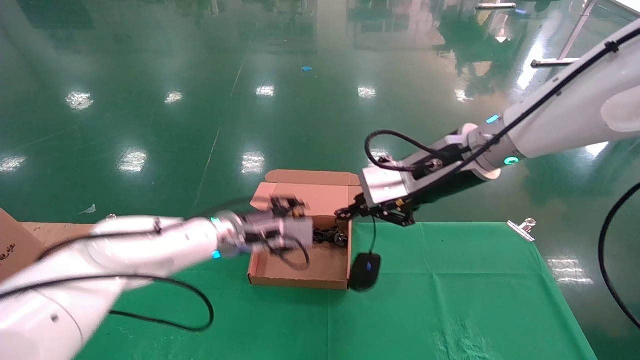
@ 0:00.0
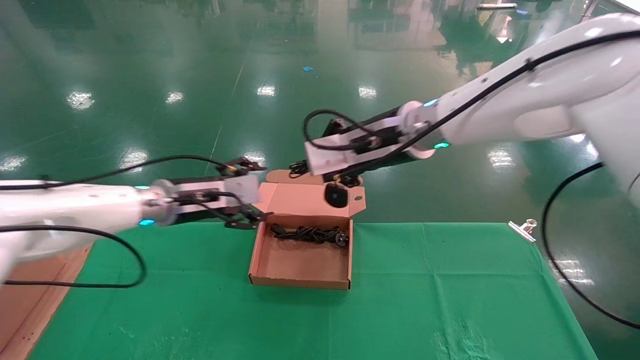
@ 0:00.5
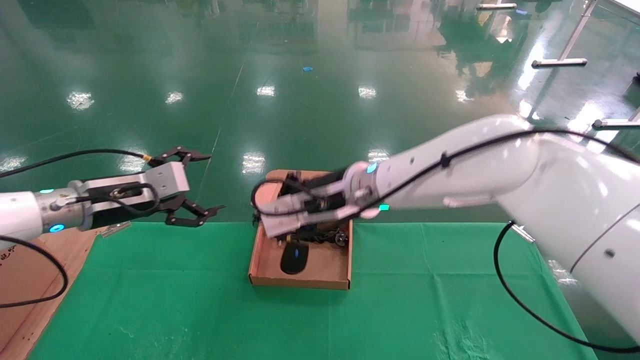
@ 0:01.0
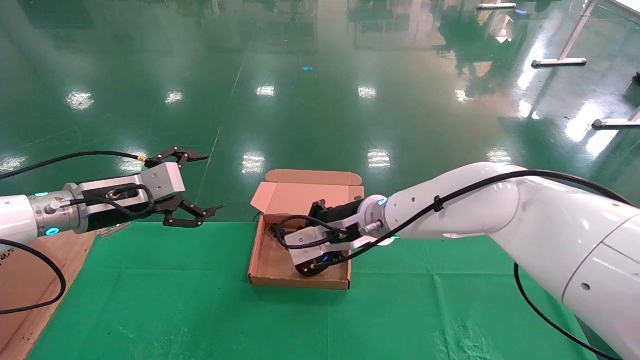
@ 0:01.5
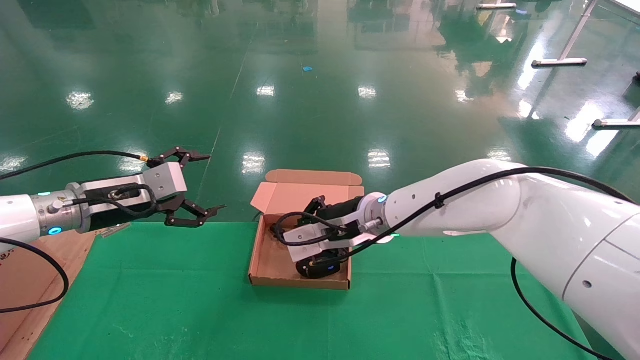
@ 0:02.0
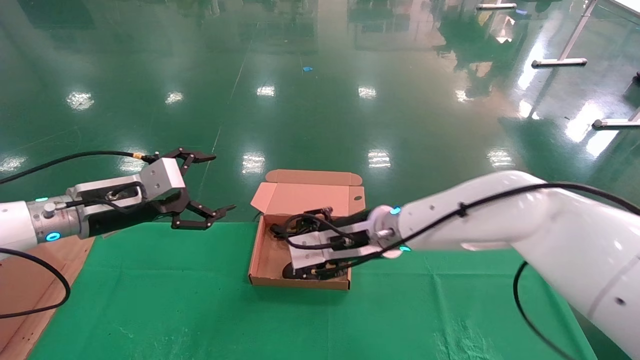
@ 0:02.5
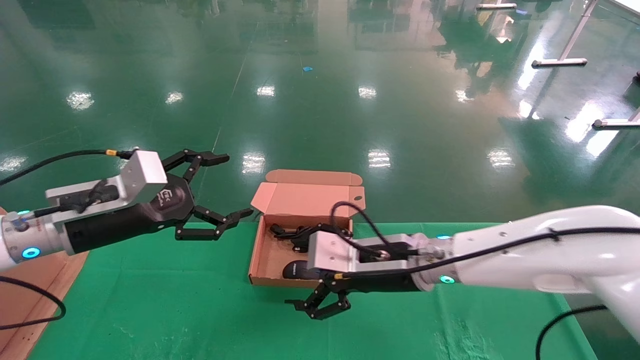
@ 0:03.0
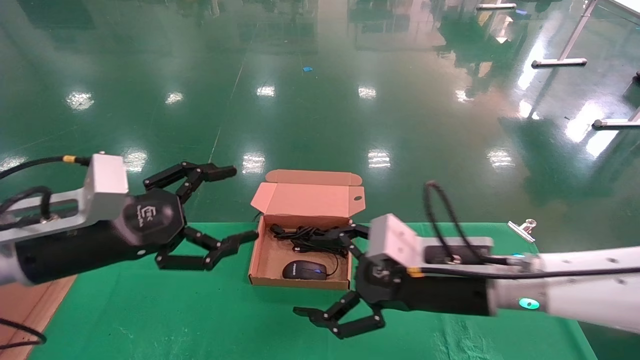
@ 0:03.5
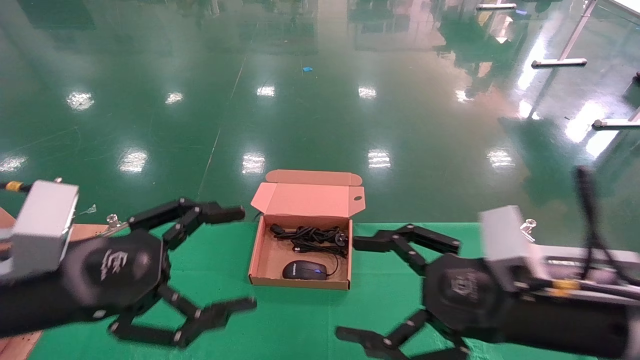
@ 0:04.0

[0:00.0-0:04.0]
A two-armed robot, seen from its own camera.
0:00.0 to 0:02.0: The right gripper travels downward and to the left by about 15 cm. The left gripper moves to the left, some 20 cm, and opens.
0:02.0 to 0:04.0: The right gripper heads backward and to the right, covering about 25 cm, and opens; the left gripper travels backward by some 20 cm.

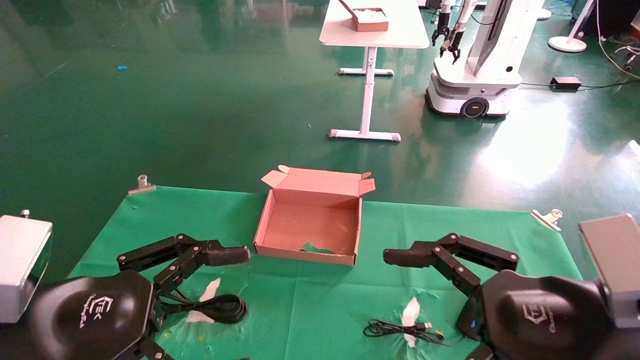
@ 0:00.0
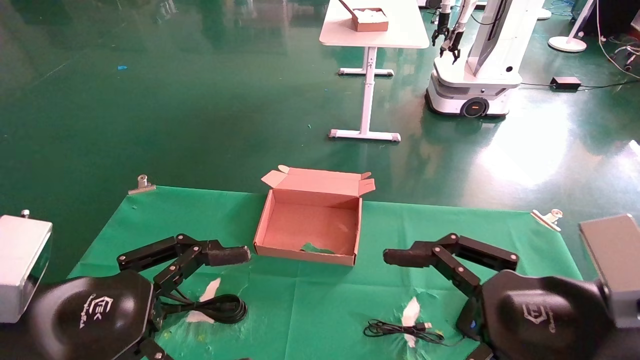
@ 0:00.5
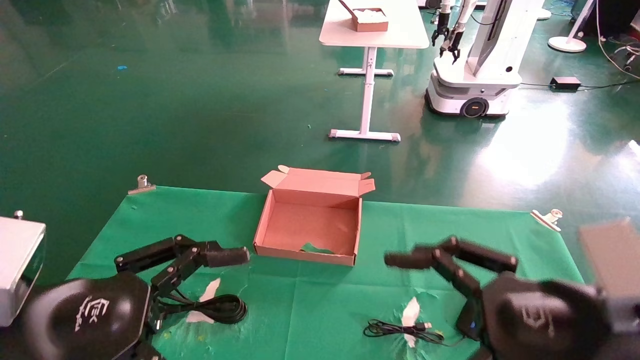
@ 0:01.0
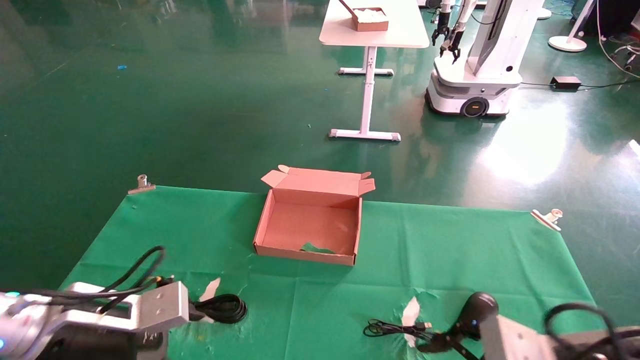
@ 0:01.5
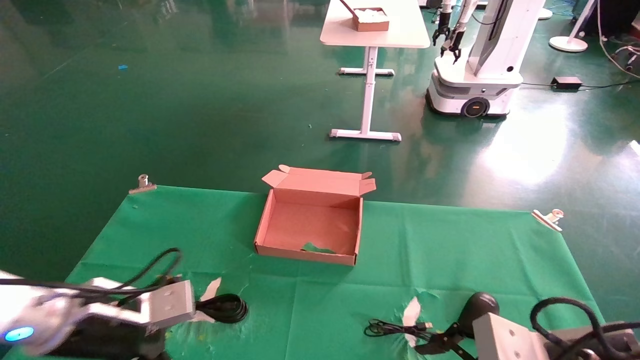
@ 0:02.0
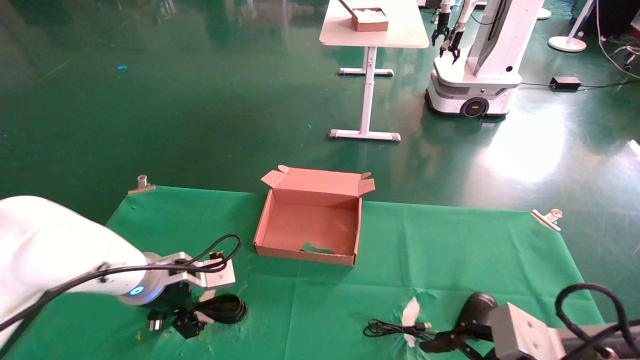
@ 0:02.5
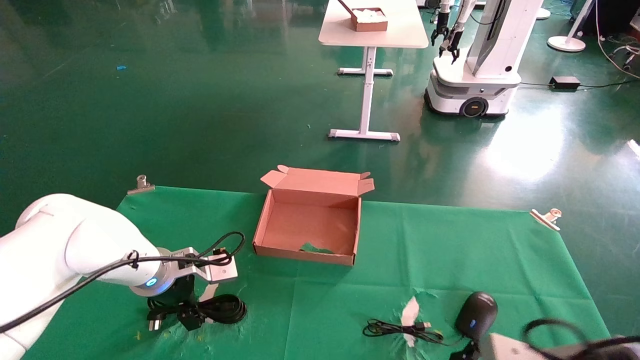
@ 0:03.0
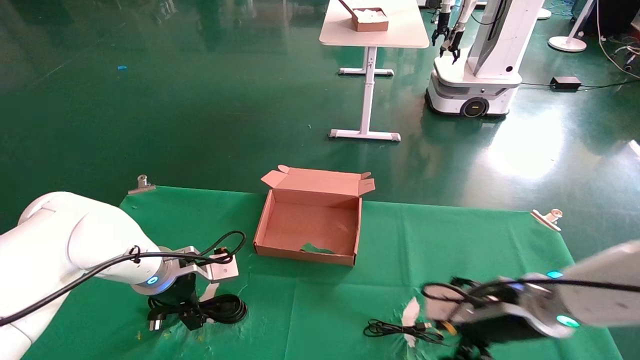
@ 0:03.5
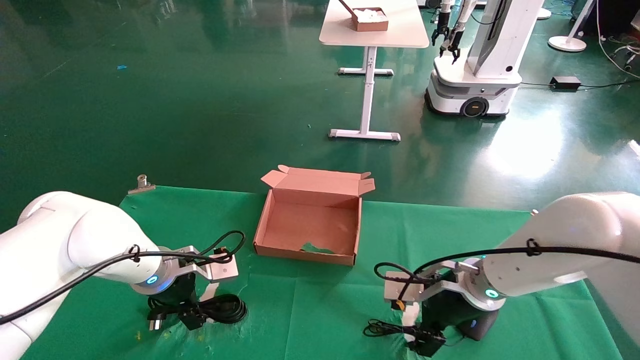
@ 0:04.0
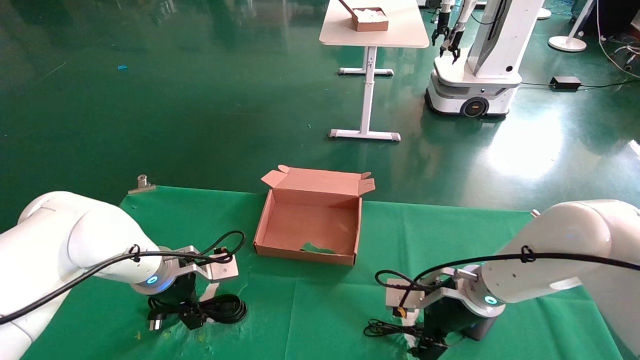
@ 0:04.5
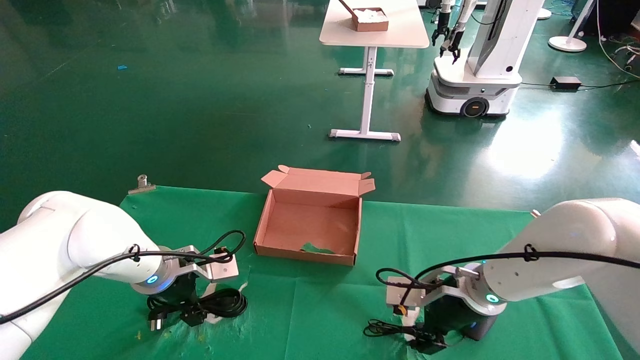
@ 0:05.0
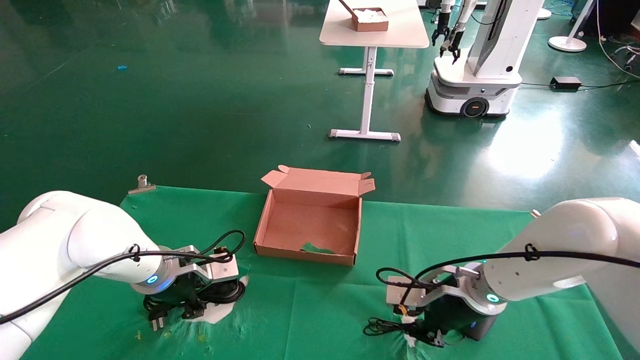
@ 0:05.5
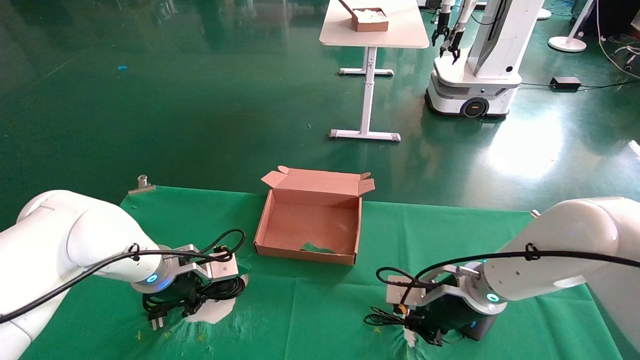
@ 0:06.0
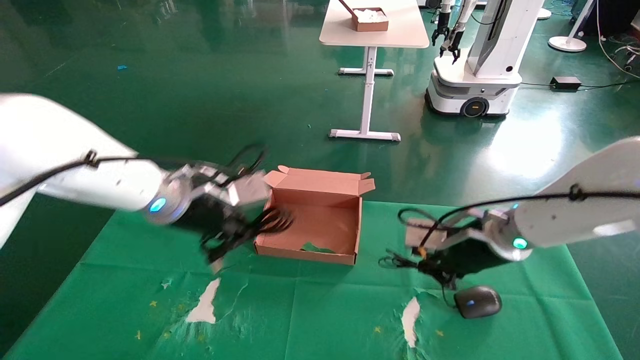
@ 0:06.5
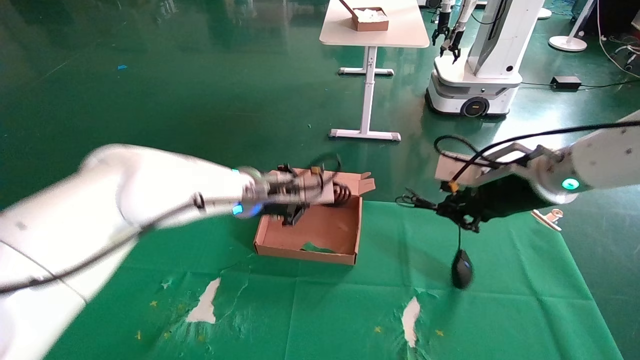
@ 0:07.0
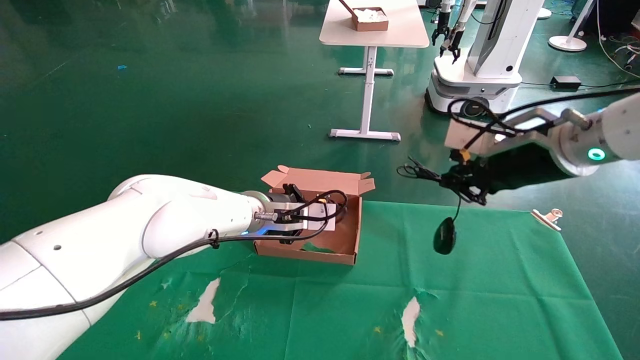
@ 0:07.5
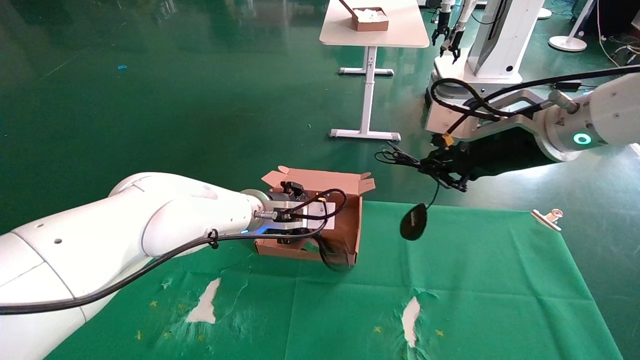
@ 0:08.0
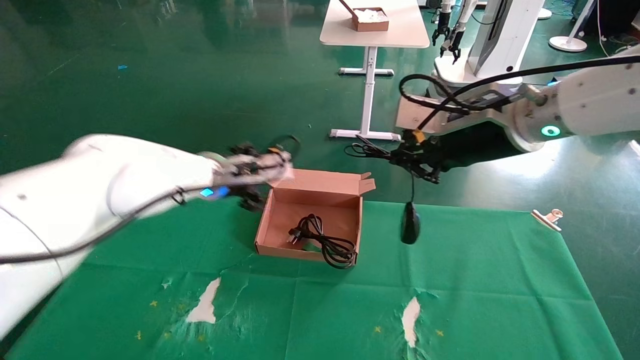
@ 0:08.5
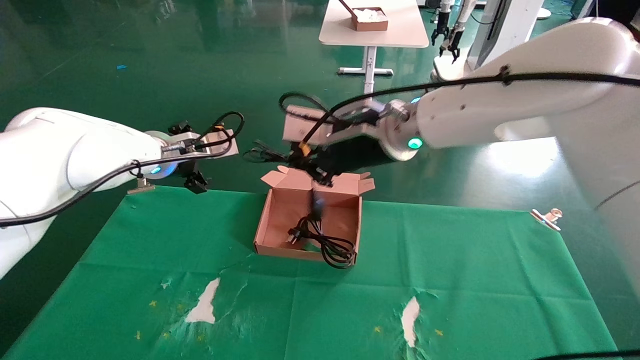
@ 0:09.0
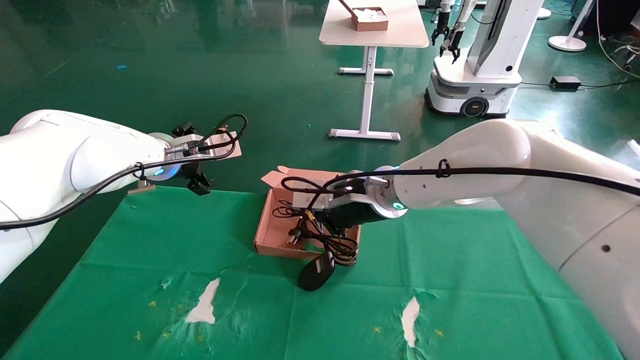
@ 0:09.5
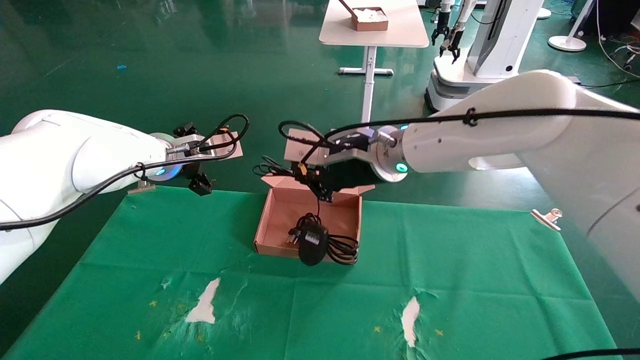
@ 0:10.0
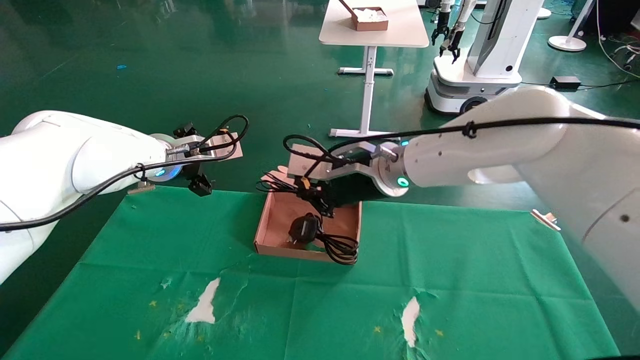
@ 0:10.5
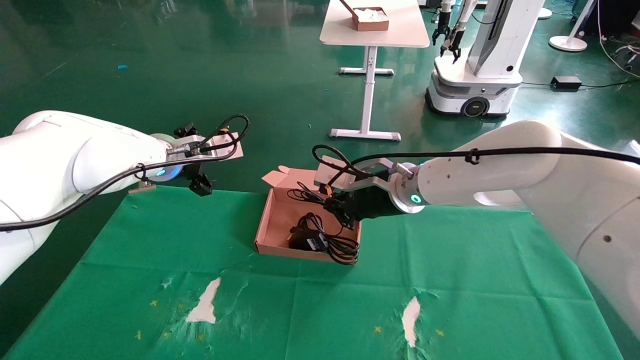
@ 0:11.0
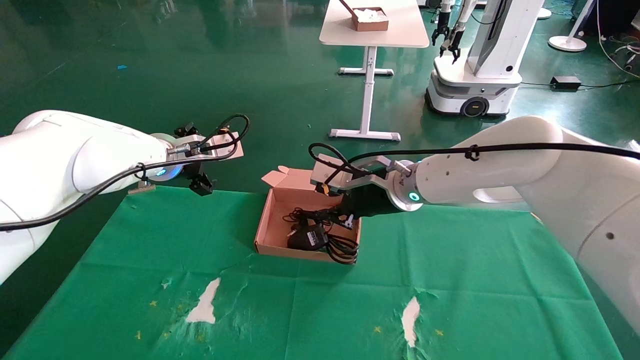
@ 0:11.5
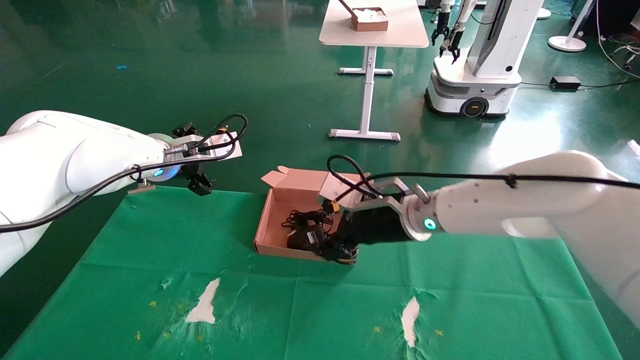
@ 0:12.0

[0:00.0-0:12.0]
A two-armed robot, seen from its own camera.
Step, 0:01.5 to 0:06.0: Grab and lift both the mouse and power cord from the accessory packaging area at the same time.
Step, 0:06.5 to 0:11.5: Place the mouse and power cord into the box.
0:00.0 to 0:02.0: The left gripper shifts about 15 cm forward and downward; the right gripper travels downward by roughly 5 cm.
0:02.0 to 0:04.0: Both grippers travel together forward, approximately 15 cm.
0:04.0 to 0:06.0: The right gripper closes; the left gripper closes its fingers.
0:06.0 to 0:08.0: The right gripper heads upward, covering some 20 cm; the left gripper moves to the right and upward, about 15 cm.
0:08.0 to 0:10.0: The right gripper moves to the left, roughly 20 cm. Meanwhile the left gripper travels to the left and upward by approximately 15 cm, and opens its fingers.
0:10.0 to 0:12.0: The right gripper goes roughly 10 cm downward, and opens.

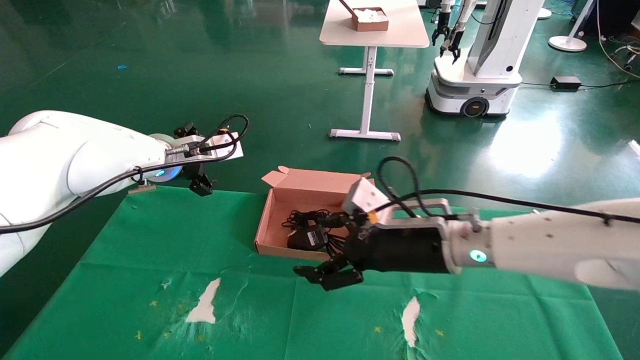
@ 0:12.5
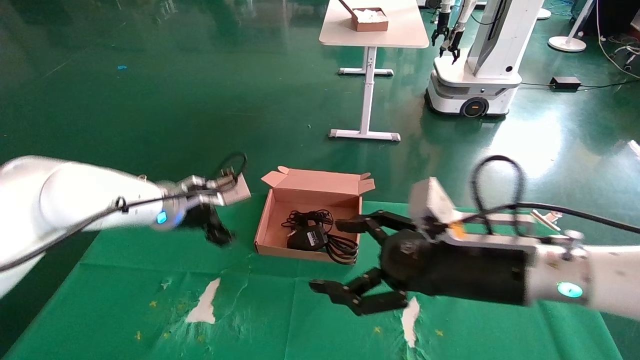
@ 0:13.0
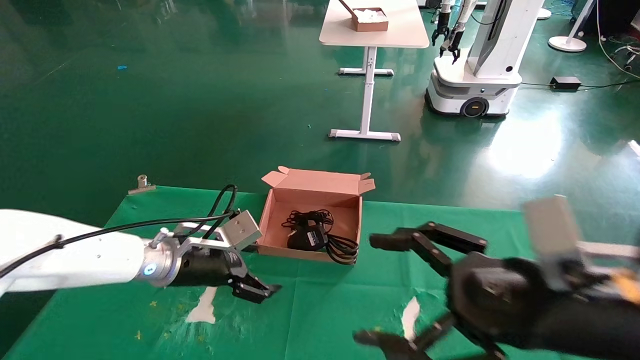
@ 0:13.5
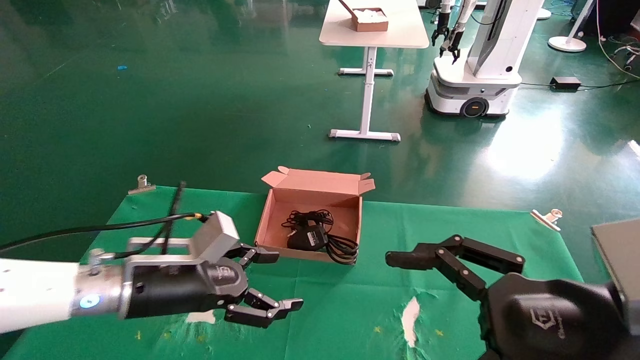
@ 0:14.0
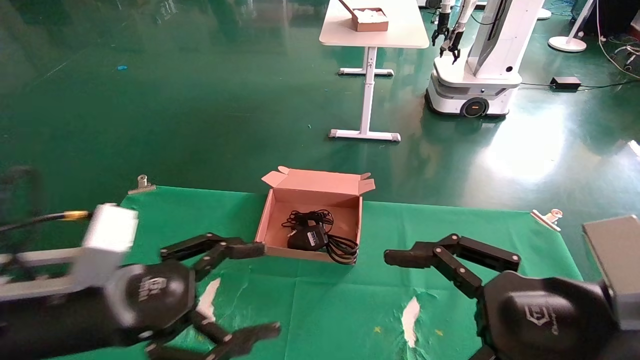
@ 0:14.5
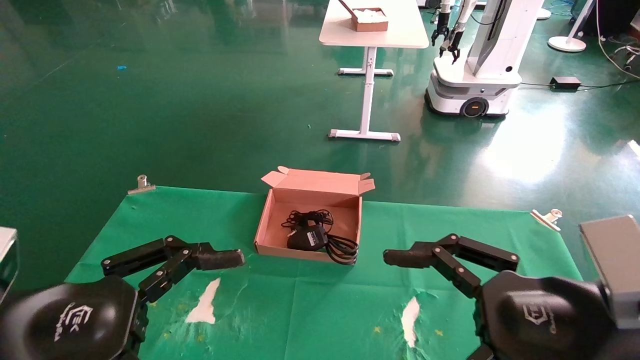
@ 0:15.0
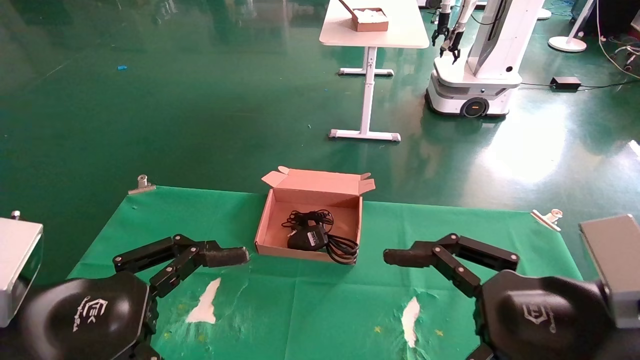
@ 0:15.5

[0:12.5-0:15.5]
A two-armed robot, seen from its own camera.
0:12.5 to 0:14.0: The right gripper shifts roughly 20 cm backward and to the right; the left gripper goes roughly 20 cm backward and downward.
0:14.0 to 0:15.5: The left gripper moves backward, about 15 cm.
